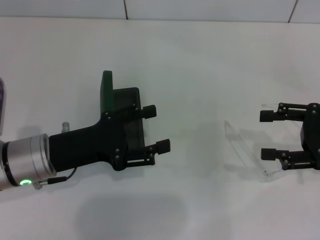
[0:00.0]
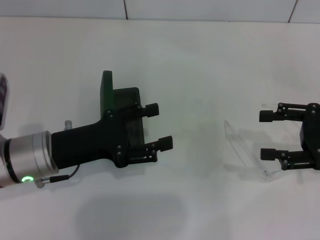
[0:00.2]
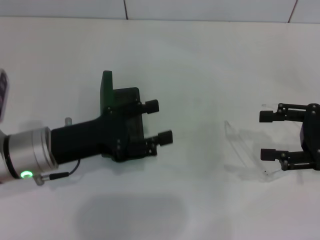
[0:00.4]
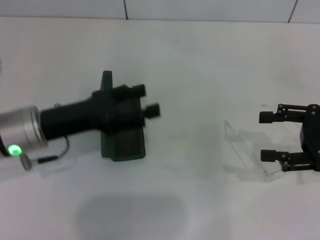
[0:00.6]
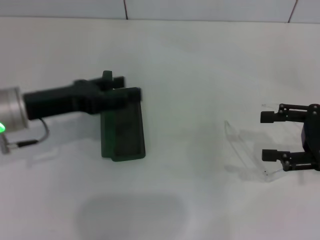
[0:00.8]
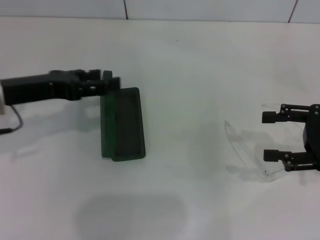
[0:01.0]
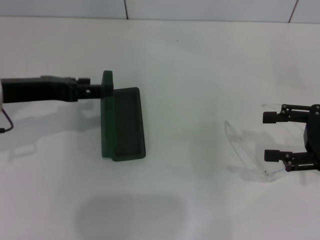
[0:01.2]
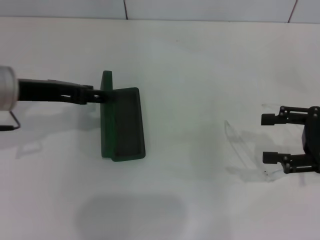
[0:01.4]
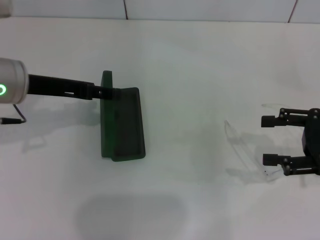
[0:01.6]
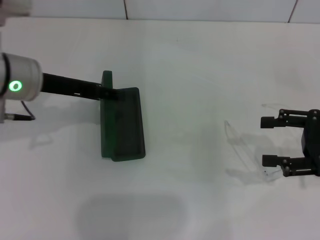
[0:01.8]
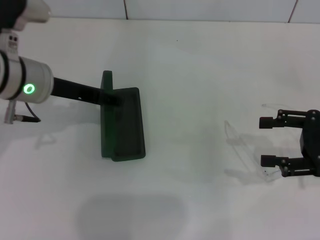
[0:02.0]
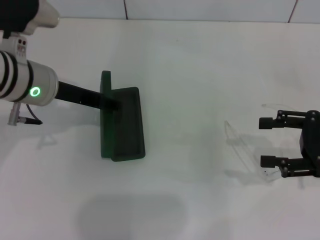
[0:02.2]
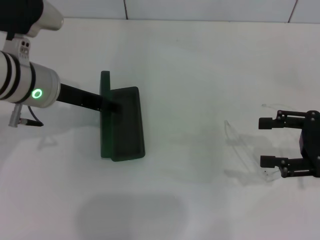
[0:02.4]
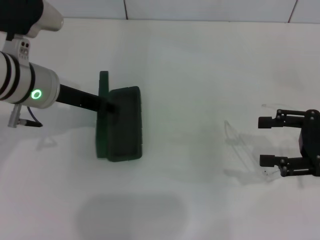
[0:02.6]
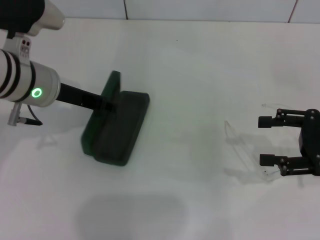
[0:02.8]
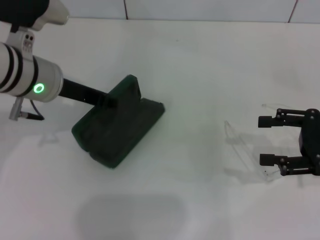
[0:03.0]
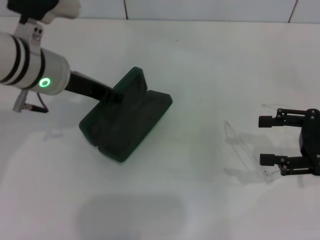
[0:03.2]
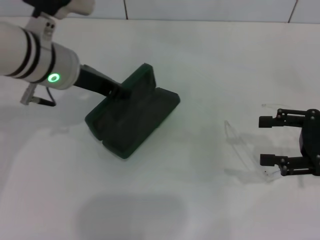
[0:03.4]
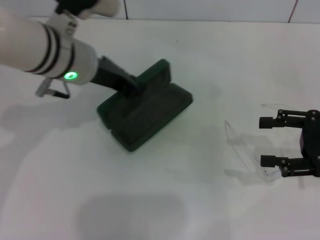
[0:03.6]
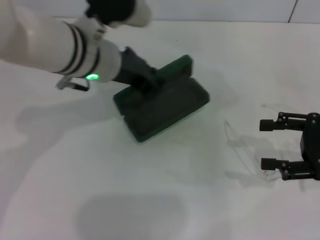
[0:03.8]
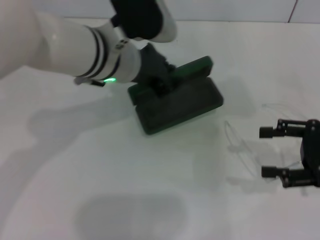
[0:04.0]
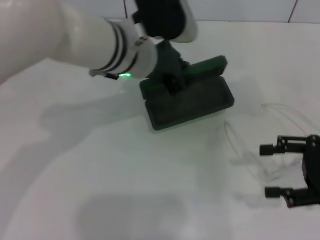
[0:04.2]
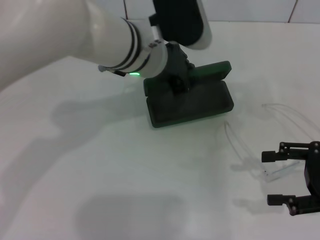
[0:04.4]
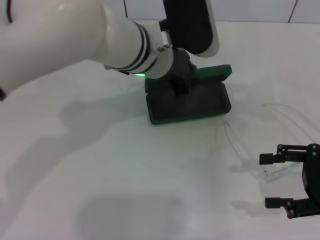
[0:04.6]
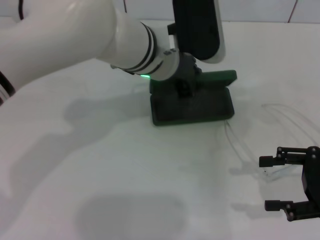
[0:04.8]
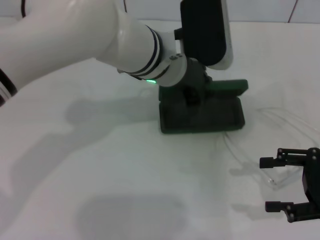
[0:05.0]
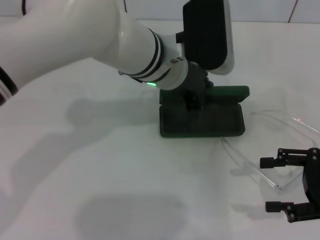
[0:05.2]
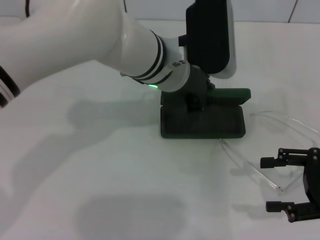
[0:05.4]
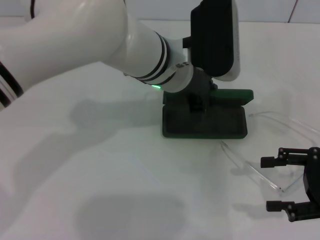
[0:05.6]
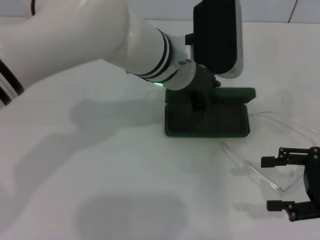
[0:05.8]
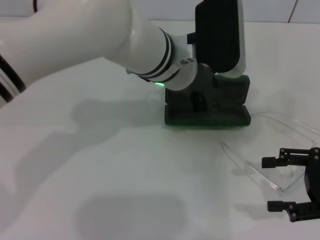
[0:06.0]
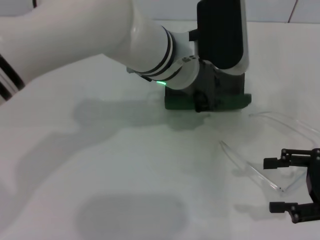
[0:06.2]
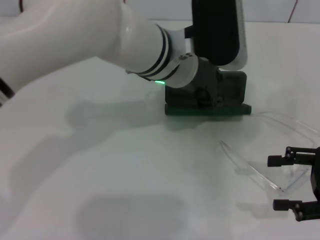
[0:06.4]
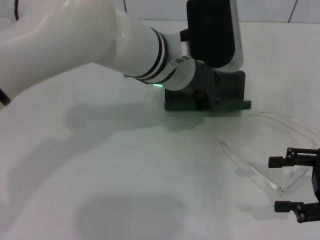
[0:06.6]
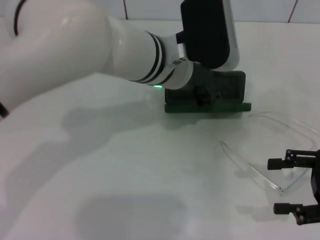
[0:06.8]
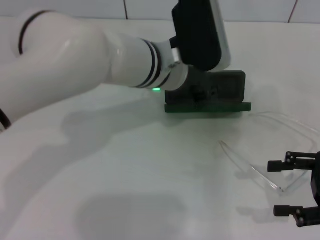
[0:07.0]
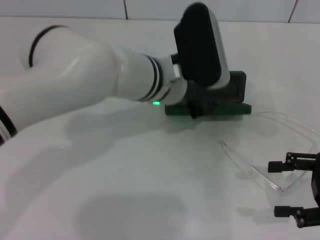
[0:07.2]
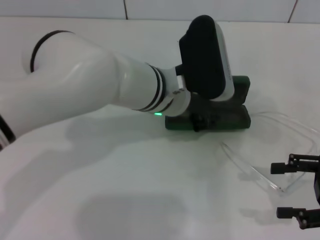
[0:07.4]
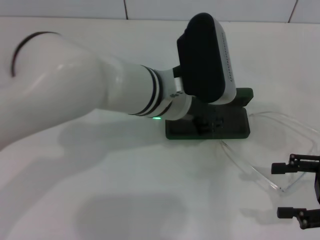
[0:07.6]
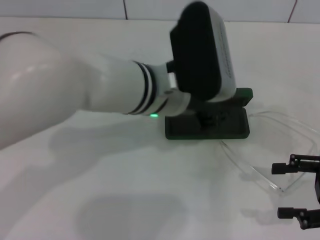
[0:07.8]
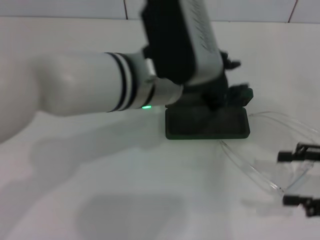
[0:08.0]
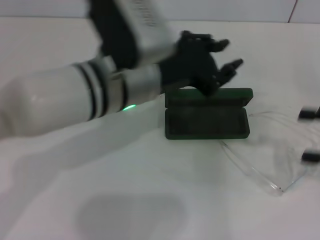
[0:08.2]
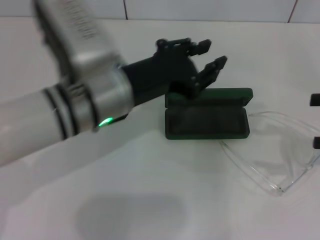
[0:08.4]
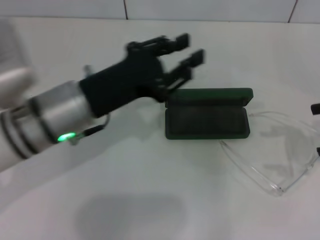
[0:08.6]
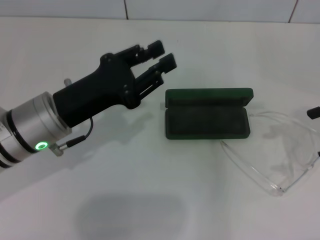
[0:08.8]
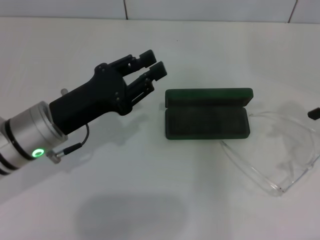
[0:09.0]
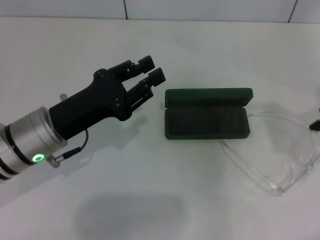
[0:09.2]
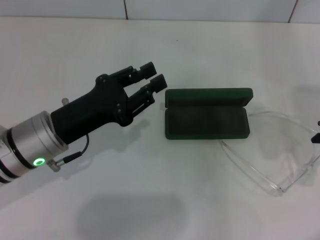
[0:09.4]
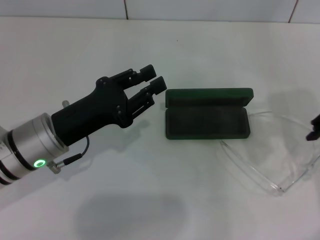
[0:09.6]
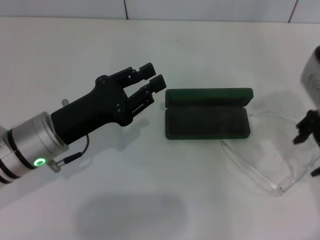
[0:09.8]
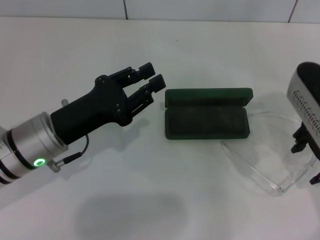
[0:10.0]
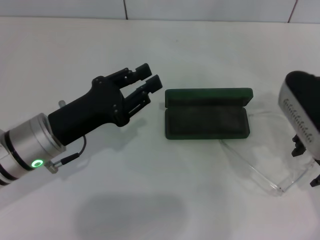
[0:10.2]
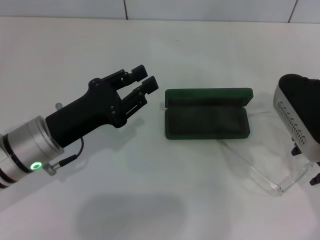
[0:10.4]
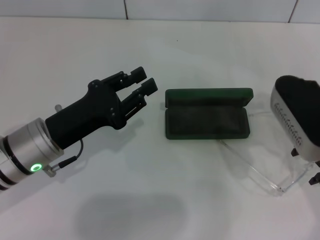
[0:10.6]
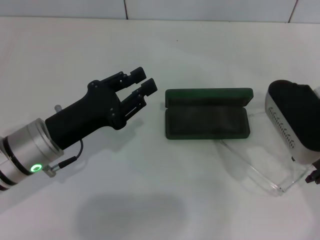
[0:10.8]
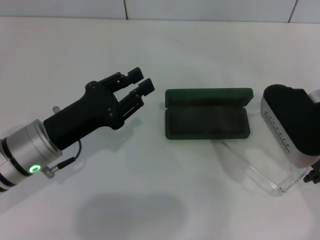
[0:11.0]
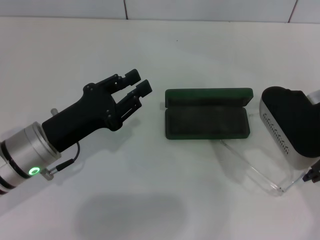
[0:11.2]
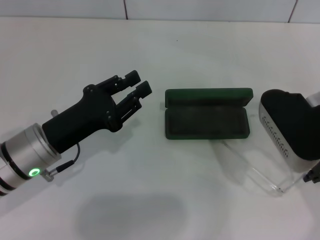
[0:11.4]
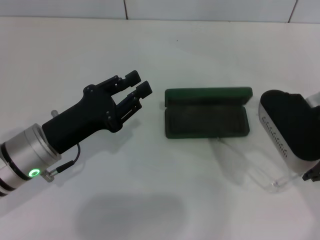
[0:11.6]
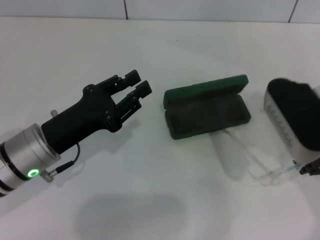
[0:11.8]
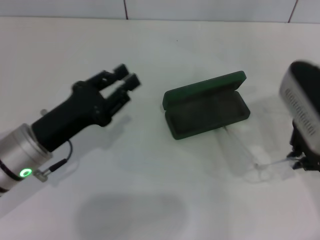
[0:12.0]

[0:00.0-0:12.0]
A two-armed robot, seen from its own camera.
Step, 0:00.0 to 0:02.8: Grab the glasses case with your left hand.
Step, 0:03.0 to 0:07.4: Place the glasses case in the center of the table with your left hand.
Step, 0:07.6 to 0:11.4: Grab the eyeglass frame with your right hand.
0:00.0 to 0:01.6: The left gripper shifts approximately 10 cm upward and forward.
0:01.6 to 0:03.0: The left gripper closes.
0:03.0 to 0:04.4: The left gripper goes roughly 15 cm to the right, and closes up.
0:07.6 to 0:09.0: The right gripper is displaced upward and forward by about 15 cm. The left gripper moves to the left, about 15 cm.
0:09.0 to 0:10.4: The right gripper shifts approximately 15 cm to the left and downward.
0:10.4 to 0:12.0: The right gripper closes its fingers.

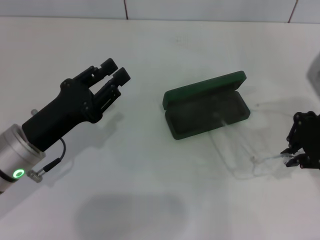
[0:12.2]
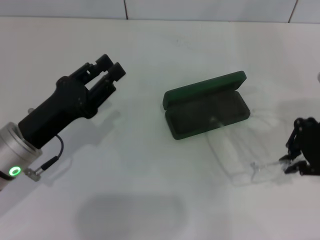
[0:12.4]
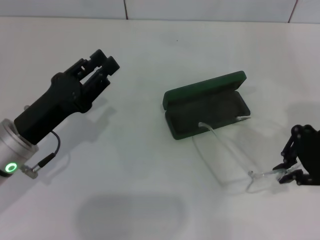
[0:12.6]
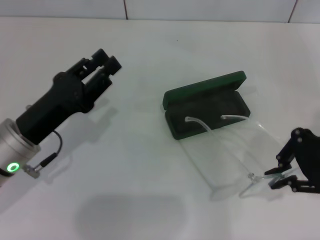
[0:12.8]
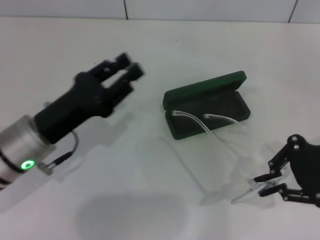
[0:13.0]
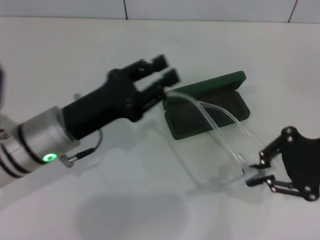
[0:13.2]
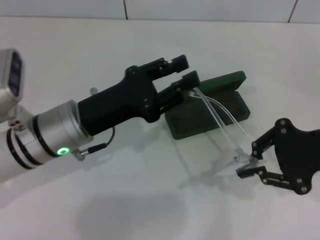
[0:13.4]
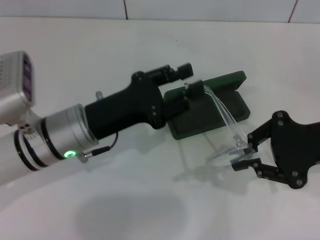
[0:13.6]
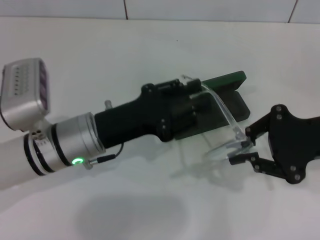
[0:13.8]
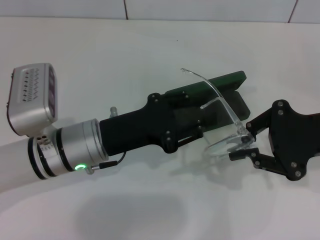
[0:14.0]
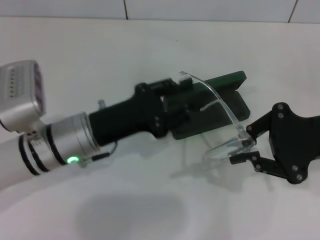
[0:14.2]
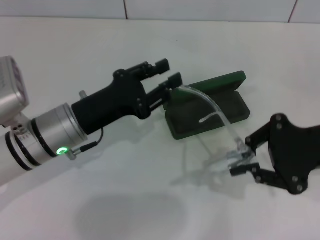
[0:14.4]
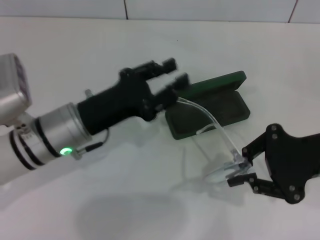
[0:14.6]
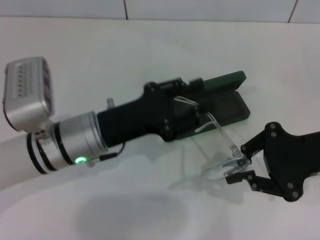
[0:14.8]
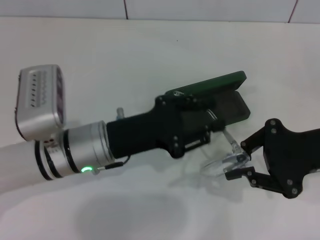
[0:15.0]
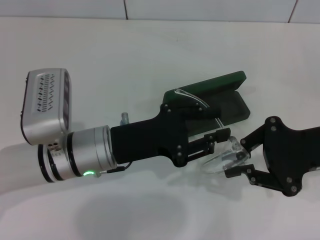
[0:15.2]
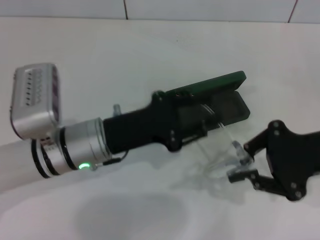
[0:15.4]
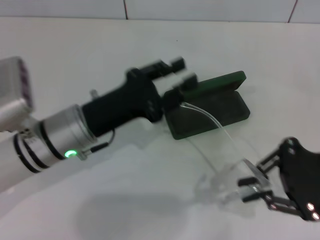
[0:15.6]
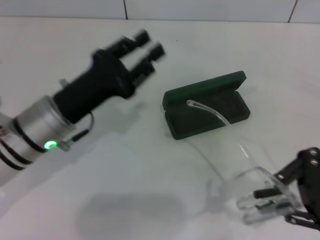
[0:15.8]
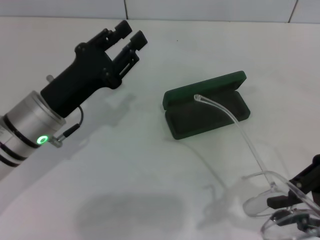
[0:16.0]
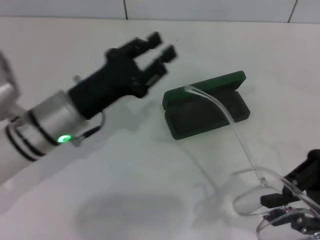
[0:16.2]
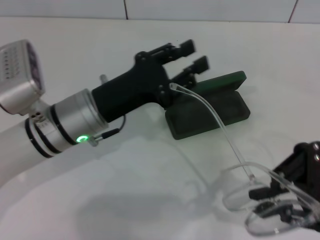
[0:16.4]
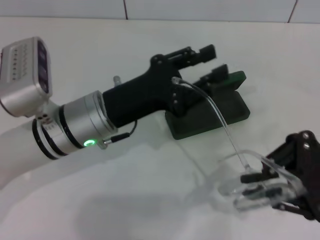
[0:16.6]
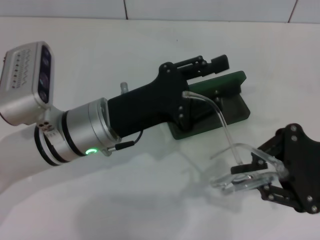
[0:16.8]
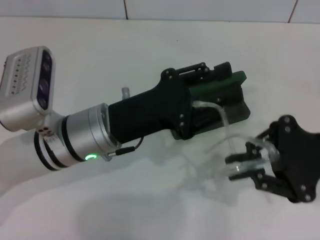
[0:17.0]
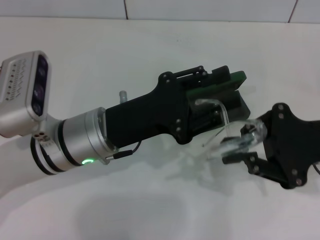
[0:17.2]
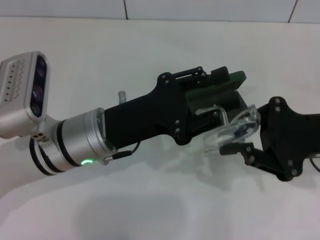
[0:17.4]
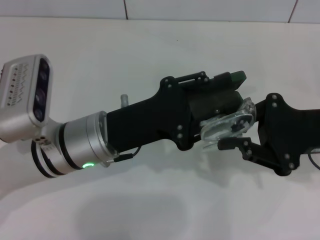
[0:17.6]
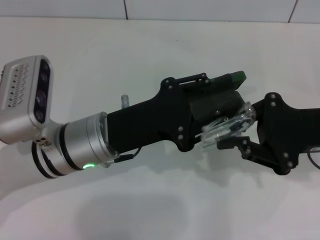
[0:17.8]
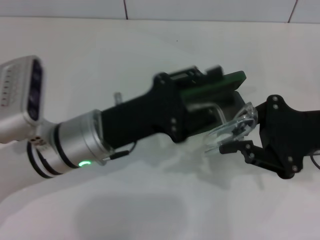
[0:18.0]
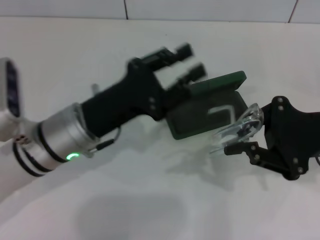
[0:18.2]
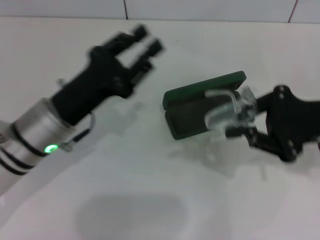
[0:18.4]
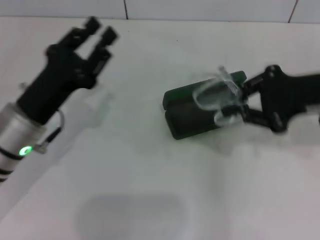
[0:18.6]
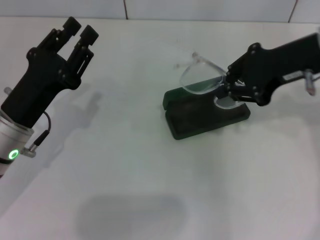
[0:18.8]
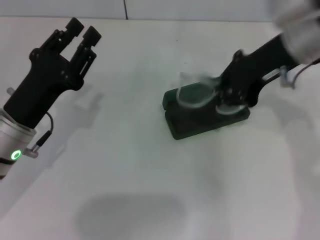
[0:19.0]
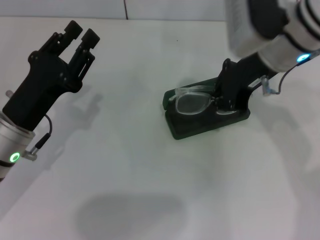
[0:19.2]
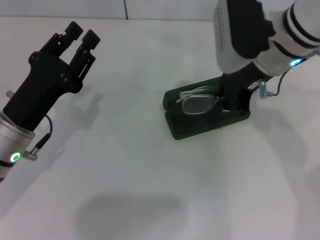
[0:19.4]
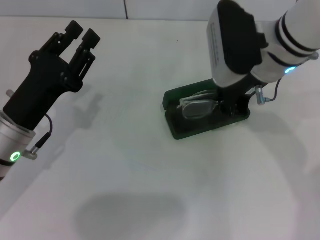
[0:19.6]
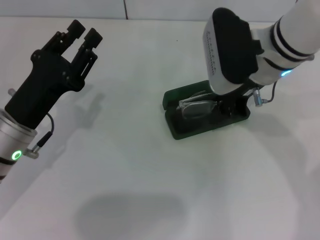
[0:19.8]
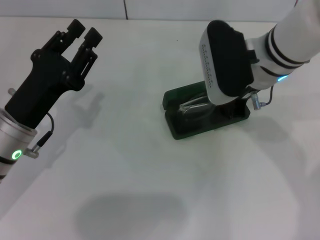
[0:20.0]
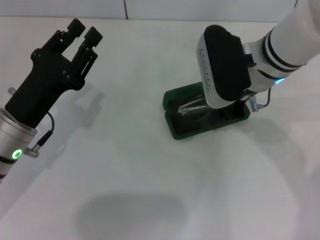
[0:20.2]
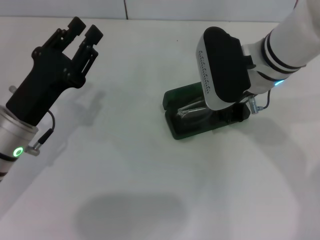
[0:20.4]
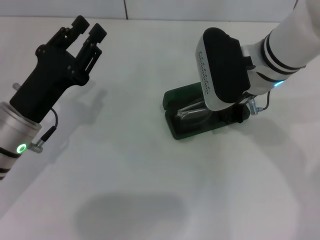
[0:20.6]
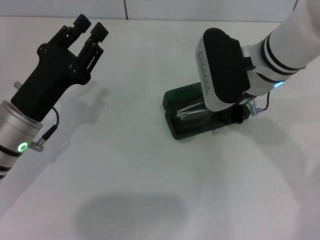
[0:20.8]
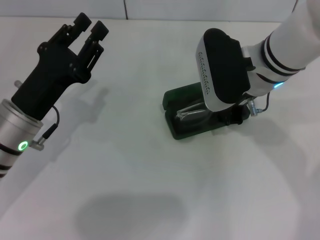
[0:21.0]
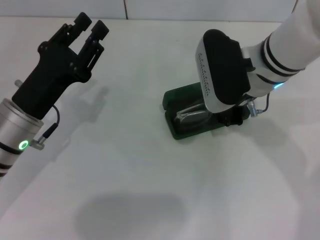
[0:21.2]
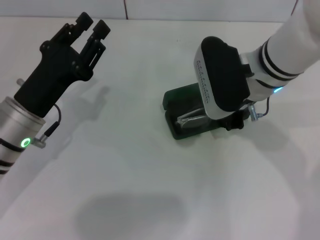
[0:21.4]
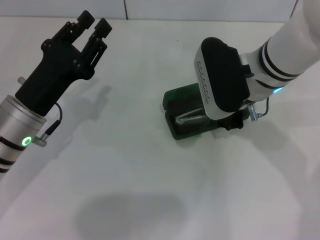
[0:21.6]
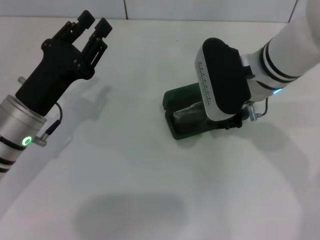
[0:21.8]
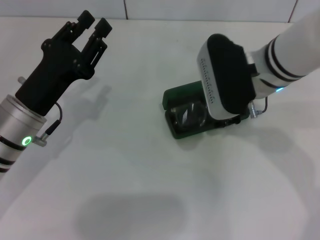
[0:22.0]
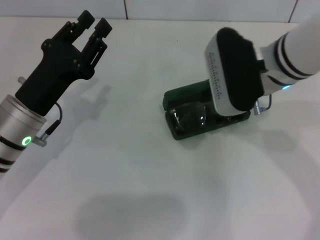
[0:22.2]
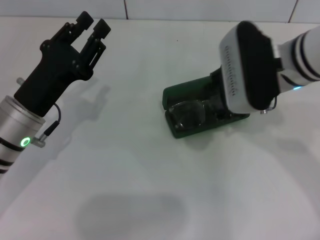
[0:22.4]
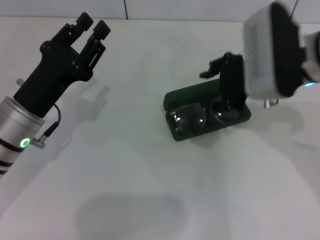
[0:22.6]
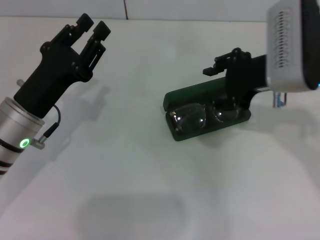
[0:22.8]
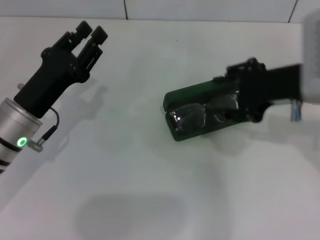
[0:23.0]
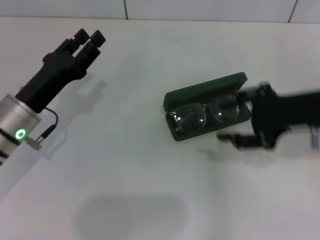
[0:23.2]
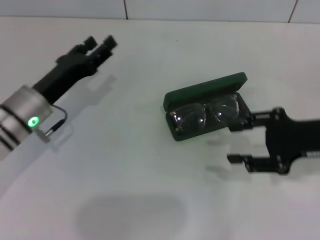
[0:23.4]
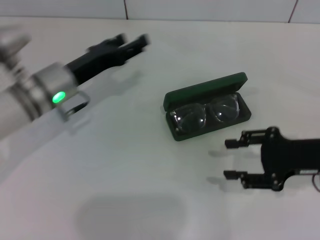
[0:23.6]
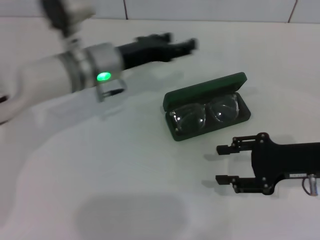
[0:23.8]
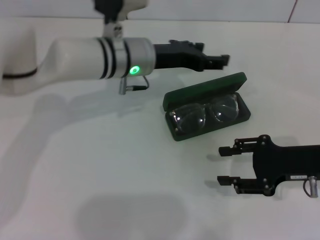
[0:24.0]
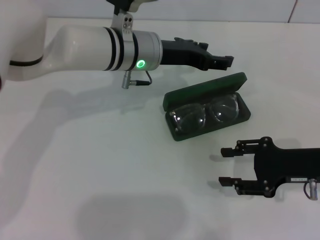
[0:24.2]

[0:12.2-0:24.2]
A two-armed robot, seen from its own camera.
Step, 0:12.2 to 0:17.8: Fold the frame with your left hand.
Step, 0:18.2 to 0:22.4: Put the glasses into the case with your right hand.
0:12.2 to 0:13.8: The left gripper travels to the right by some 5 cm; the right gripper shifts by roughly 5 cm.
0:18.2 to 0:19.8: The left gripper shifts approximately 10 cm to the left. Meanwhile the right gripper shifts roughly 15 cm to the left and forward.
0:19.8 to 0:21.2: The grippers make only small movements.
0:21.2 to 0:22.6: The right gripper ends up approximately 5 cm from where it was, and opens.
0:22.6 to 0:24.2: The left gripper shifts about 20 cm to the right and forward, and opens its fingers; the right gripper moves downward, to the right and backward, some 20 cm.
